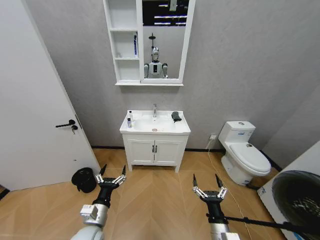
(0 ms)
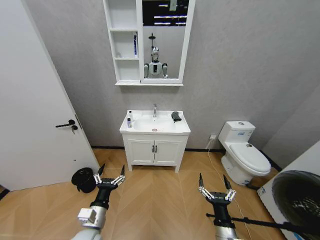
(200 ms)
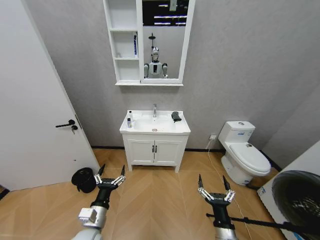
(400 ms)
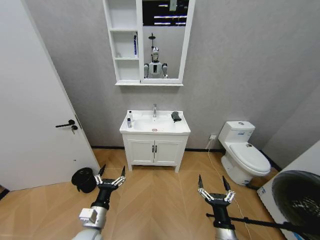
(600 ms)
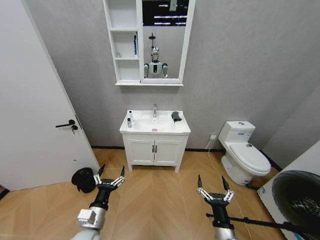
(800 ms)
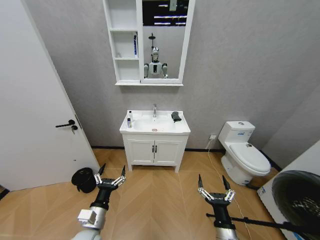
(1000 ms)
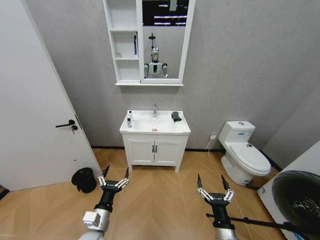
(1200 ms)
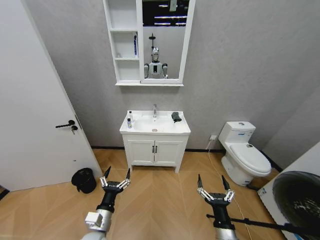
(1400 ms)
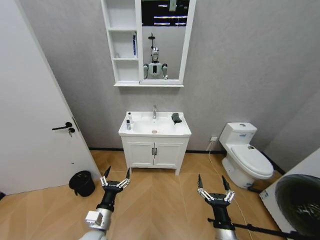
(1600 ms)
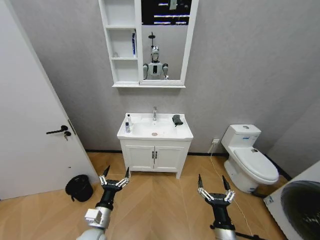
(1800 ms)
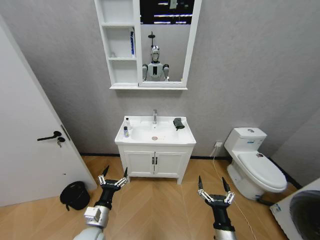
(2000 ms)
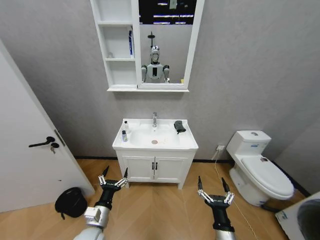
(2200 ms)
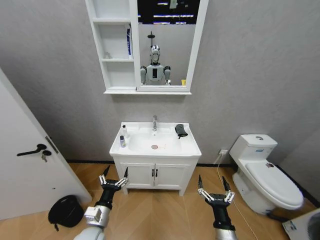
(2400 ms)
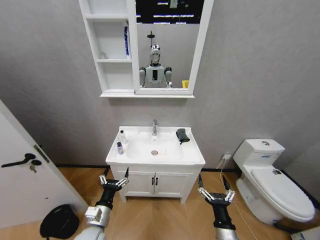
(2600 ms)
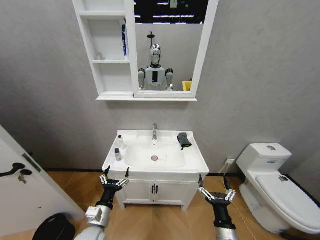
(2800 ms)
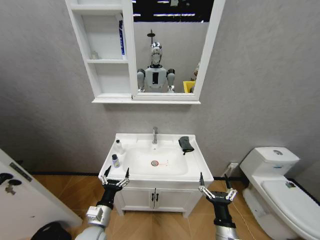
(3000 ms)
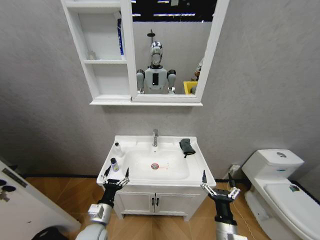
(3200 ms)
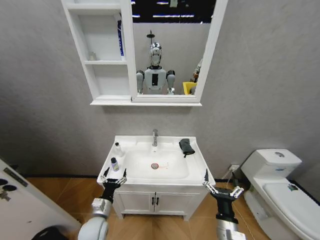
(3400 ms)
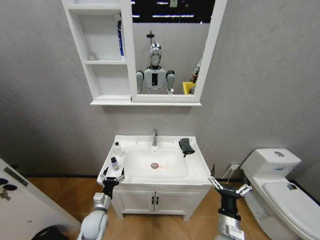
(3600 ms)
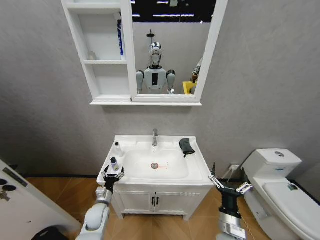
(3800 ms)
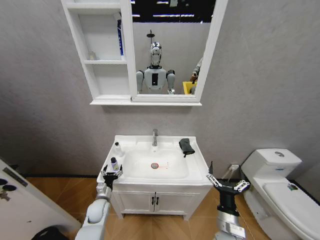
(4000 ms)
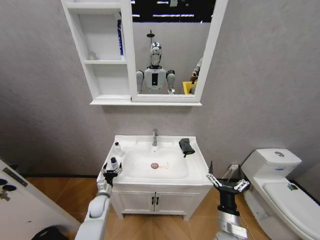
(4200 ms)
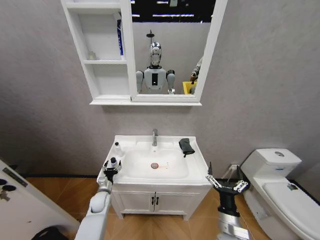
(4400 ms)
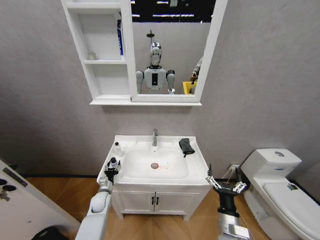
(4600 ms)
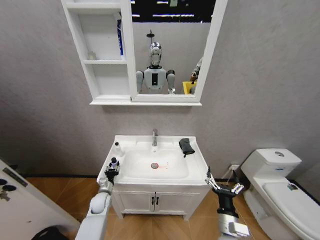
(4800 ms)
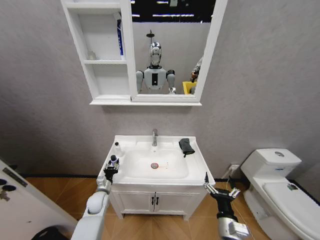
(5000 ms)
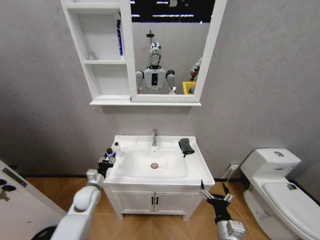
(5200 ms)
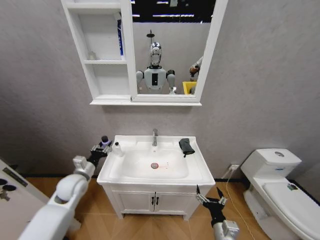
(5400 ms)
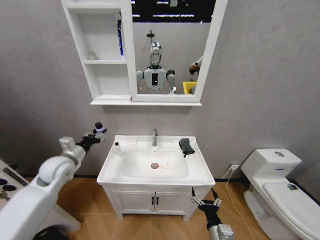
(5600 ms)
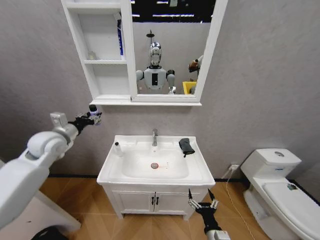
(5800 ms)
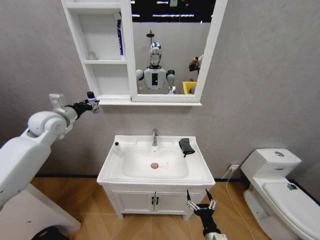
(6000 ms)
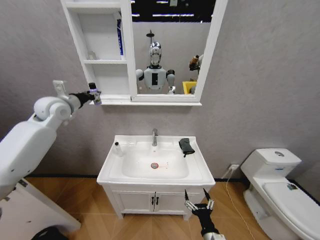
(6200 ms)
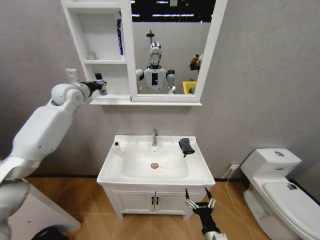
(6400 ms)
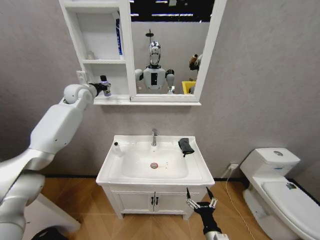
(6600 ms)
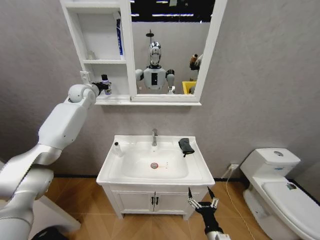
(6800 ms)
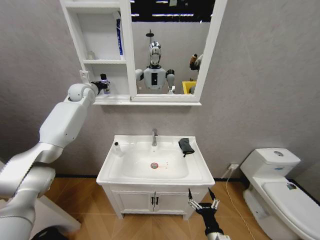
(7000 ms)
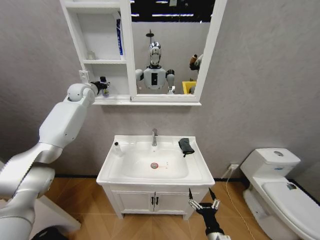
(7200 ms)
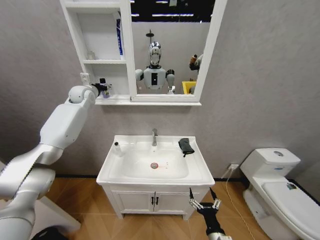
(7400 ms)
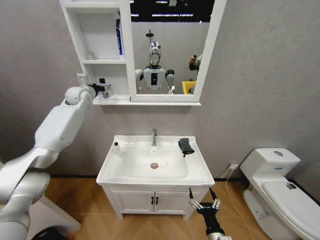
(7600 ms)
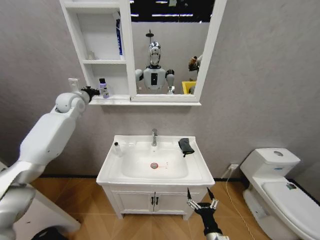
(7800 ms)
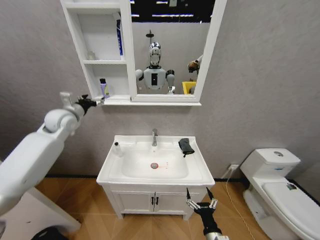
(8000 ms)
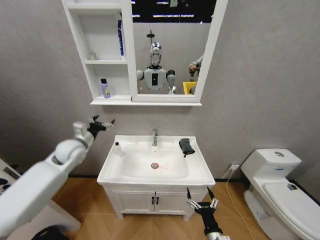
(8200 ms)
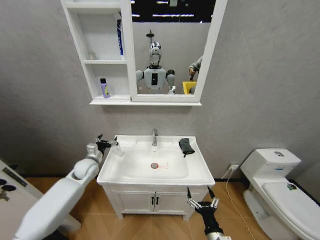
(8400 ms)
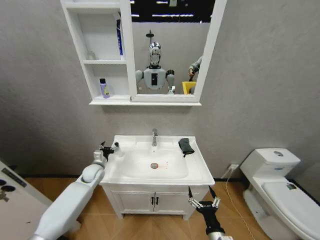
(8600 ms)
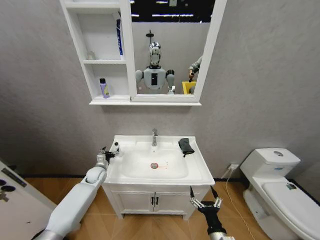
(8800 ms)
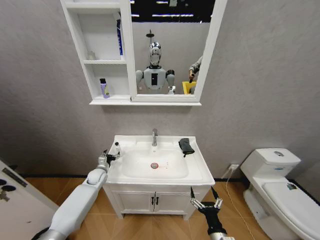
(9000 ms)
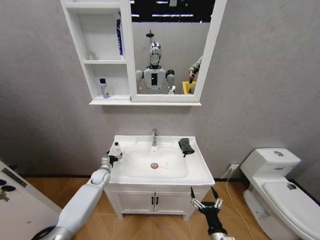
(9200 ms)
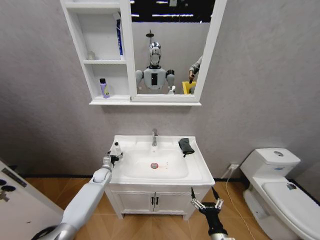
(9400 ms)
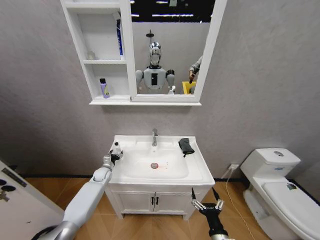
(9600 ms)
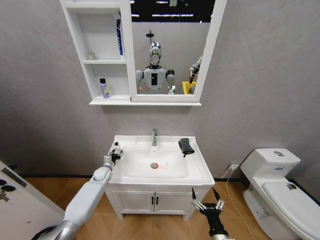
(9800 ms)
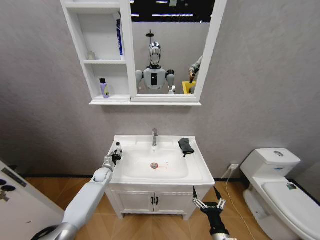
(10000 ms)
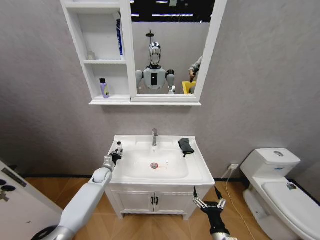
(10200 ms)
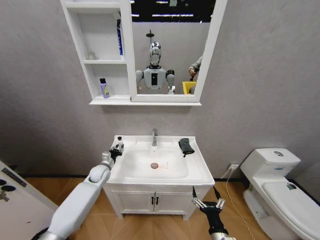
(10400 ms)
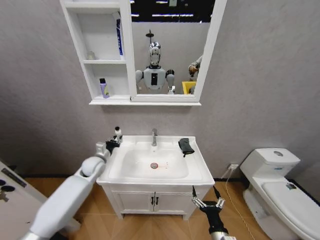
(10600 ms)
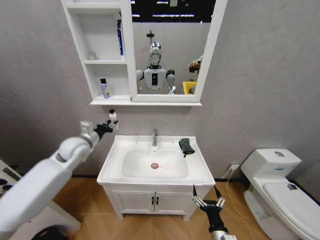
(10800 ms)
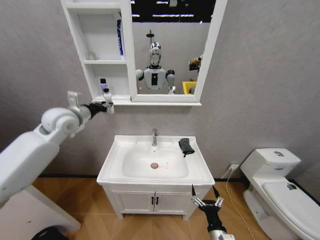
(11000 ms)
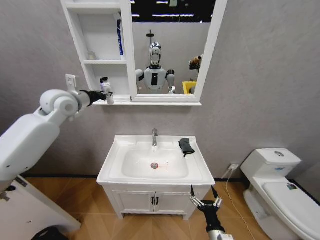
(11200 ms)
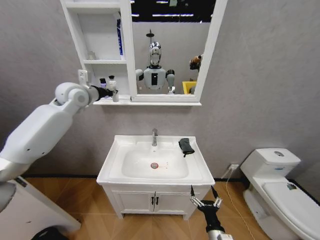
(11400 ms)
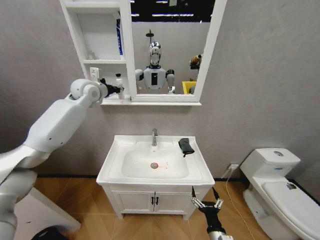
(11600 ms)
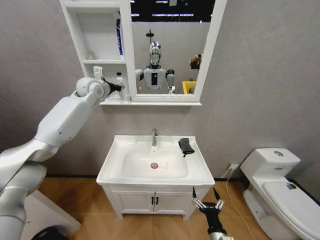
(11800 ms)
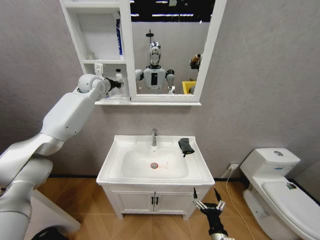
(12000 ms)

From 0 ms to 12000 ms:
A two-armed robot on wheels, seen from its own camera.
Task of the whole recording: Move facial cleanser and shampoo from washbasin to cabinet, then wipe washbasin with towel.
From 3000 ms to 4400 ms: The left gripper is displaced forward and downward by some 20 cm.
From 4400 ms to 6000 ms: The left gripper shifts roughly 40 cm upward, and closes; the right gripper shifts roughly 5 cm backward.
From 6000 ms to 7600 ms: The left gripper heads forward, covering roughly 15 cm, and opens up.
From 7600 ms to 9000 ms: The left gripper is displaced downward by some 40 cm.
From 9000 ms to 10400 ms: The left gripper closes up.
From 10400 ms to 12000 ms: The left gripper goes some 40 cm upward.

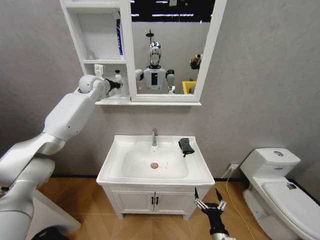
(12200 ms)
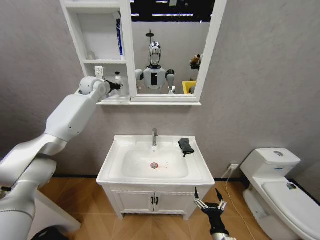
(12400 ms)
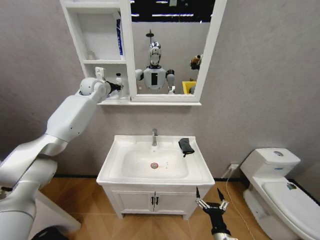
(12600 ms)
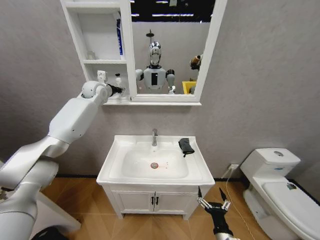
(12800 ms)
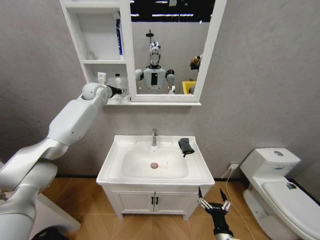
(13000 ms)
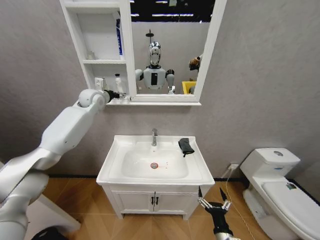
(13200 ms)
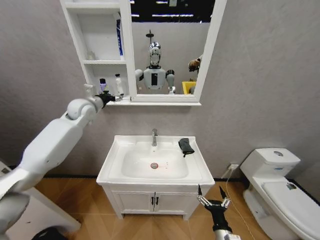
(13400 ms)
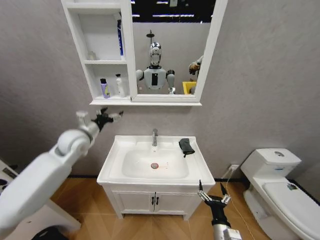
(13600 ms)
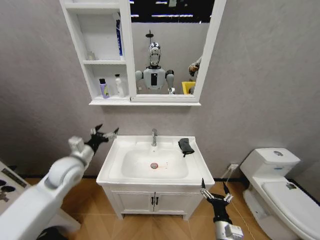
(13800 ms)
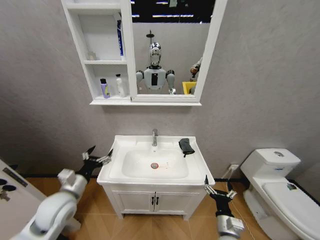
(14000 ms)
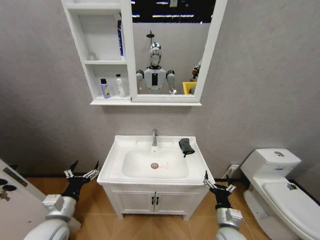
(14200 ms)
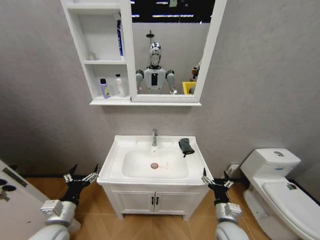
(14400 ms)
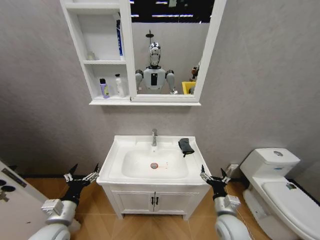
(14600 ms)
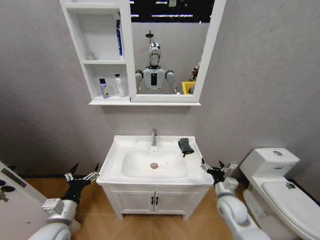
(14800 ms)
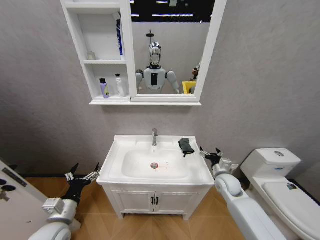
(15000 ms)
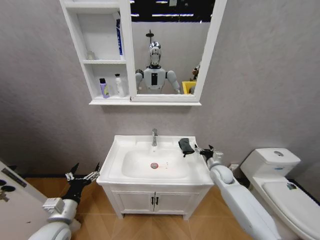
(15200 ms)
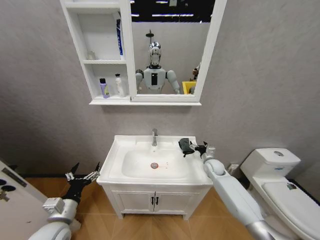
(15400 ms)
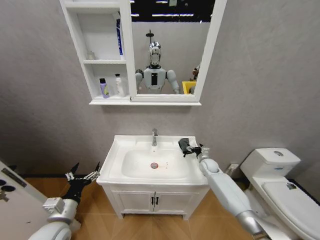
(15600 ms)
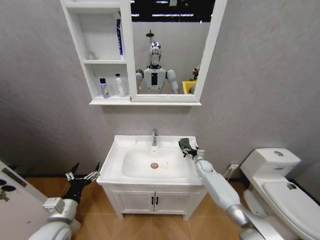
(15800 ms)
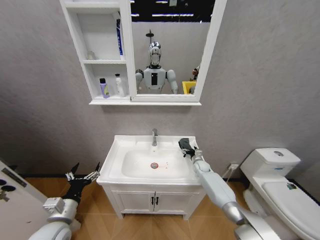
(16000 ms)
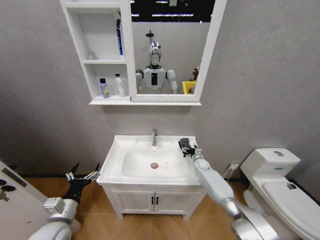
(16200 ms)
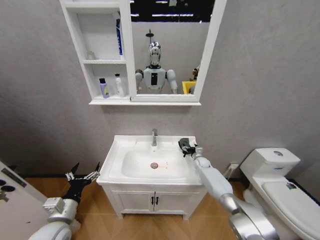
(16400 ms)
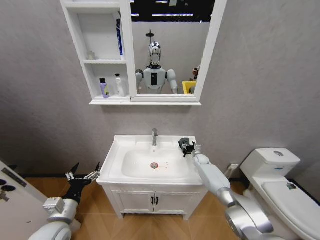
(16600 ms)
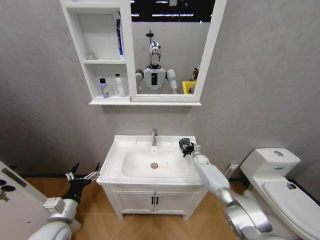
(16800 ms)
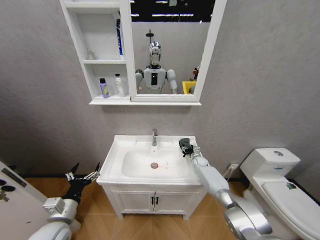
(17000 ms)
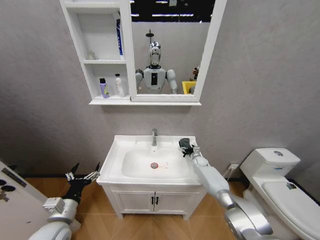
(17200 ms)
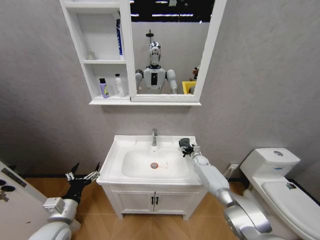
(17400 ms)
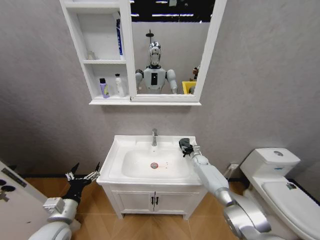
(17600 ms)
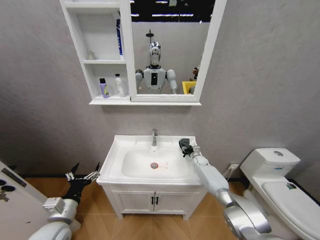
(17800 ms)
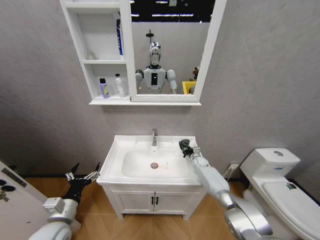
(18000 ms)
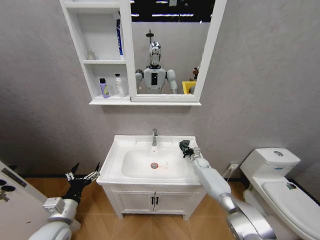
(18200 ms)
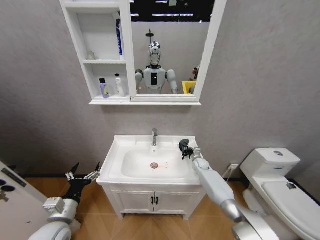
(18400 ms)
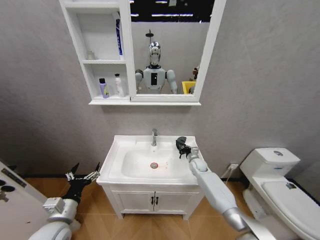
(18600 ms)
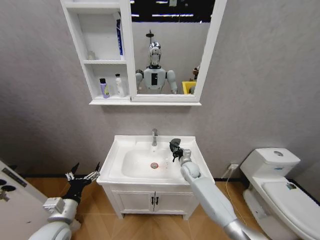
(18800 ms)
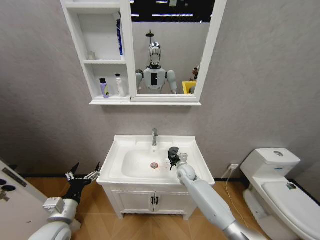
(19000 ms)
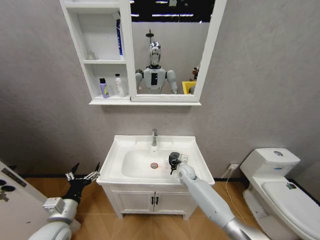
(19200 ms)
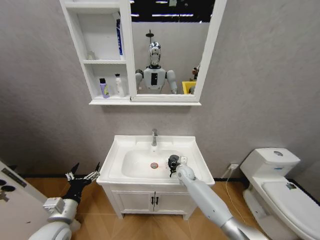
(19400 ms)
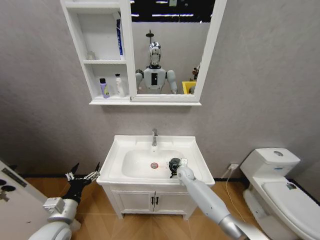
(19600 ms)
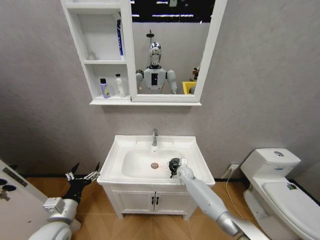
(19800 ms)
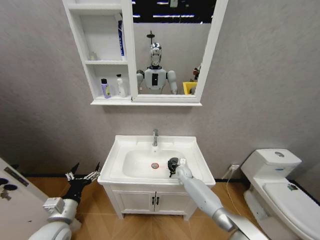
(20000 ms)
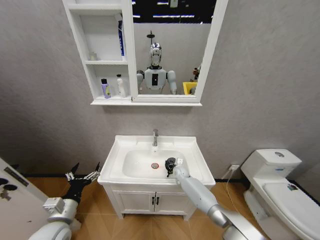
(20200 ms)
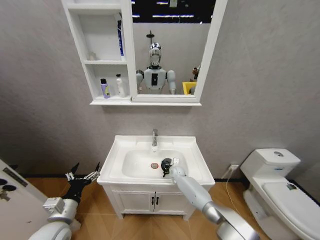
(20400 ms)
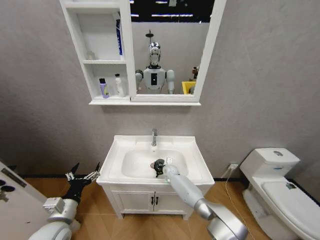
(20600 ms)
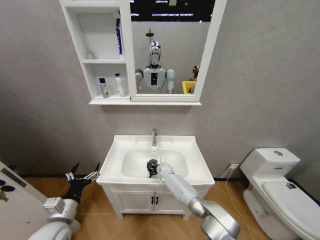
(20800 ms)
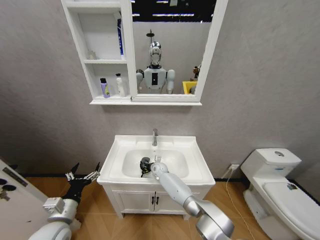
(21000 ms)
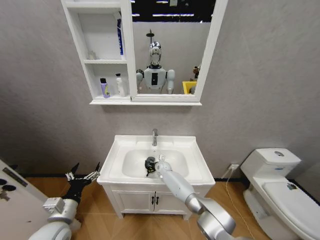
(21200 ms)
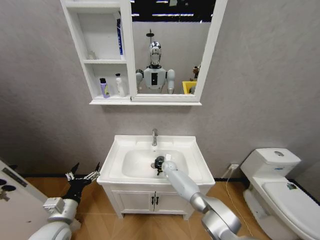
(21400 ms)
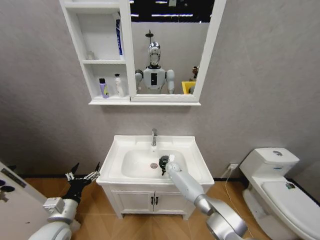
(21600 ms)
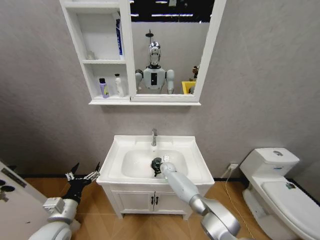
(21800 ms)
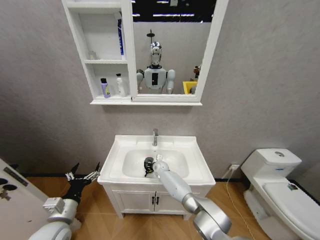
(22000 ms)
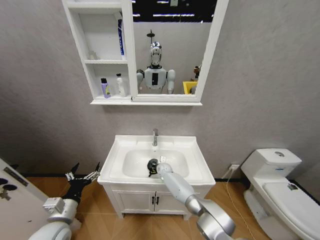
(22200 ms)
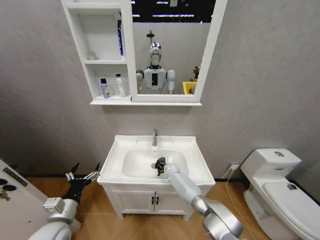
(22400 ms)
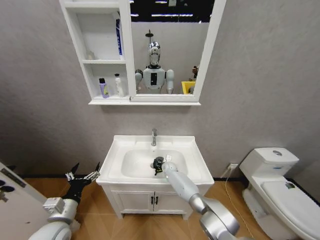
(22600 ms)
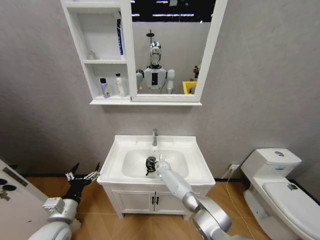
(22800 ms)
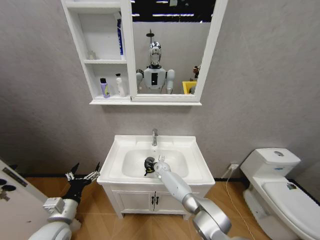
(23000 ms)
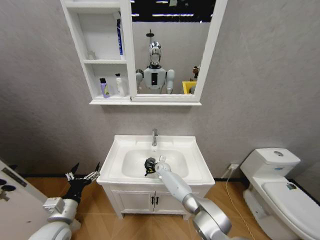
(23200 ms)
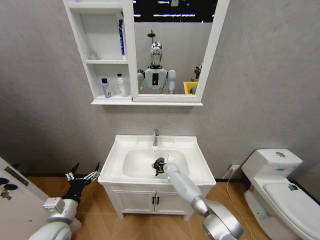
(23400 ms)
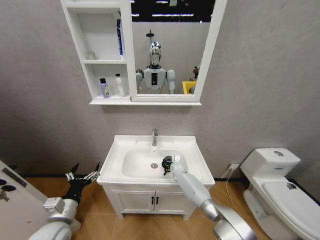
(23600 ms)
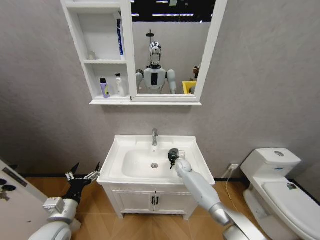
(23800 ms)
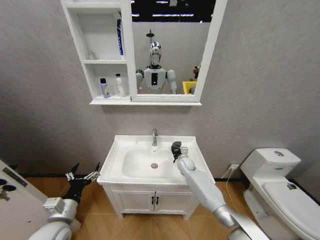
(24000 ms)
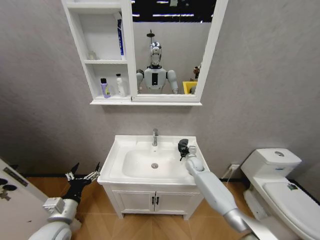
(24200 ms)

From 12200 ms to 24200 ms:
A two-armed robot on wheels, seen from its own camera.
Task of the whole recording: Move facial cleanser and shampoo from washbasin to cabinet, then wipe washbasin with towel.
From 12200 ms to 13800 ms: The left gripper heads backward and downward, covering approximately 35 cm, and opens.
From 13800 ms to 15200 ms: The right gripper goes approximately 25 cm forward; the left gripper shifts about 15 cm backward and downward.
From 15200 ms to 16600 ms: The right gripper shifts roughly 20 cm forward and downward.
From 16600 ms to 18200 ms: The right gripper closes.
From 18200 ms to 19800 ms: The right gripper is displaced to the left and backward by about 15 cm.
From 19800 ms to 21200 ms: The right gripper goes some 15 cm to the left and forward.
From 21200 ms to 22600 ms: The right gripper moves left and right over some 10 cm, changing direction 2 times.
From 22600 ms to 24200 ms: The right gripper shifts some 15 cm to the right and upward.
